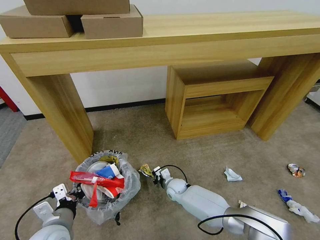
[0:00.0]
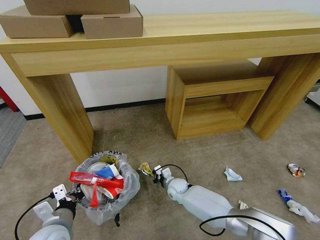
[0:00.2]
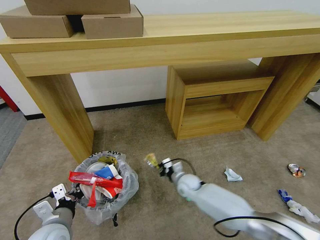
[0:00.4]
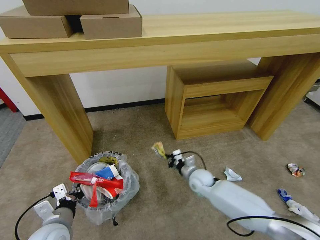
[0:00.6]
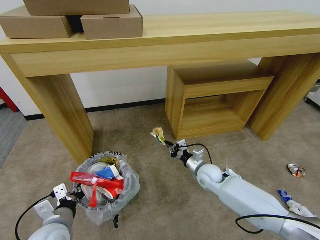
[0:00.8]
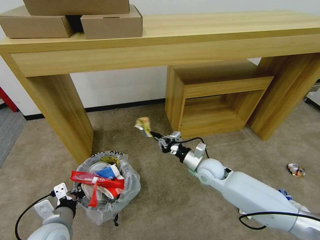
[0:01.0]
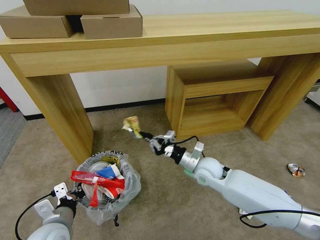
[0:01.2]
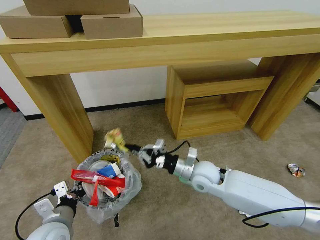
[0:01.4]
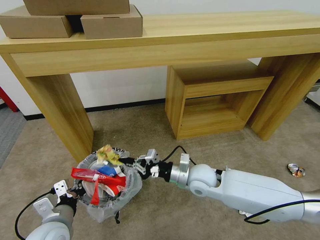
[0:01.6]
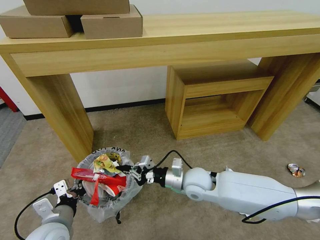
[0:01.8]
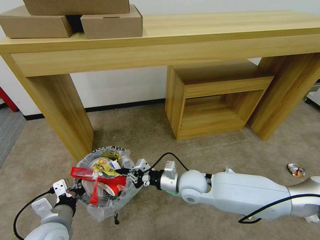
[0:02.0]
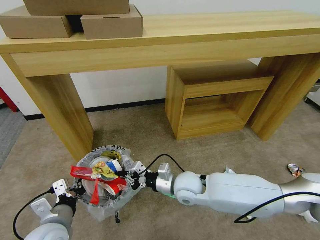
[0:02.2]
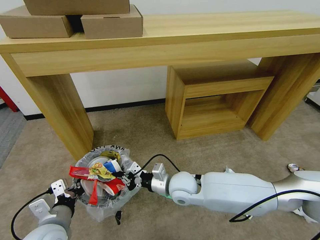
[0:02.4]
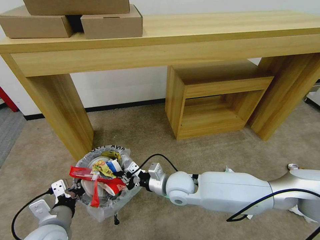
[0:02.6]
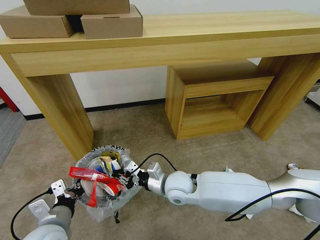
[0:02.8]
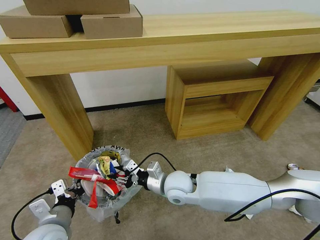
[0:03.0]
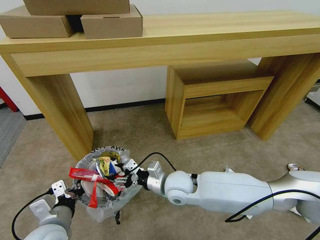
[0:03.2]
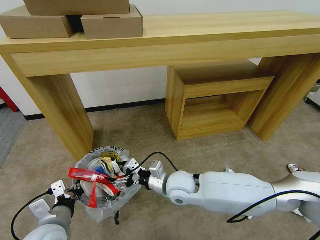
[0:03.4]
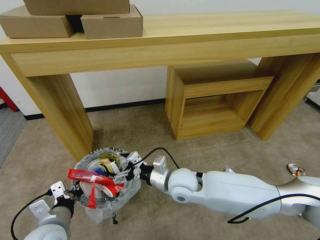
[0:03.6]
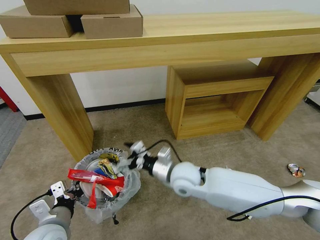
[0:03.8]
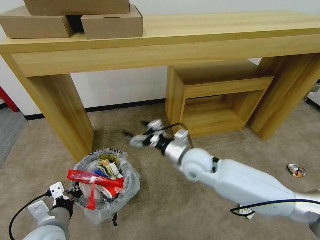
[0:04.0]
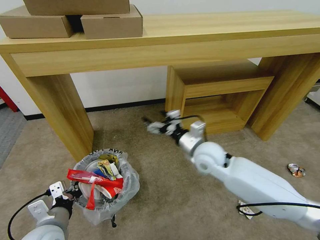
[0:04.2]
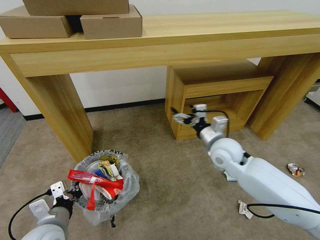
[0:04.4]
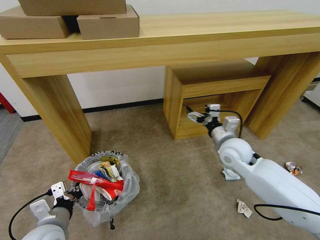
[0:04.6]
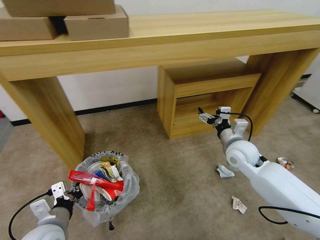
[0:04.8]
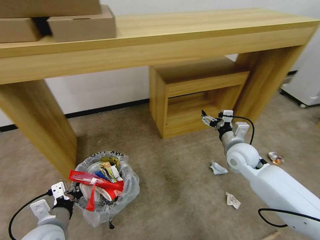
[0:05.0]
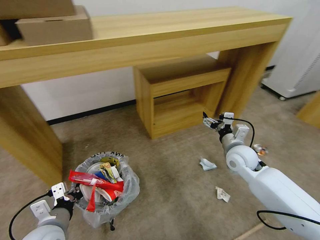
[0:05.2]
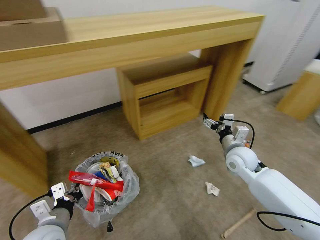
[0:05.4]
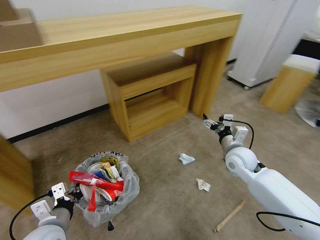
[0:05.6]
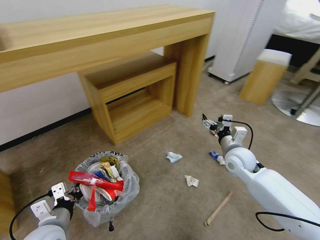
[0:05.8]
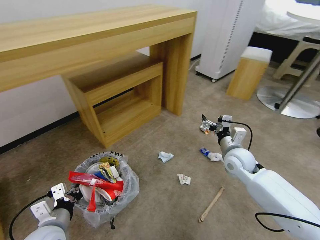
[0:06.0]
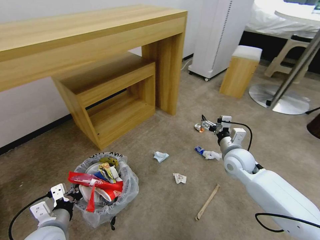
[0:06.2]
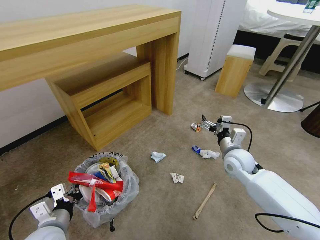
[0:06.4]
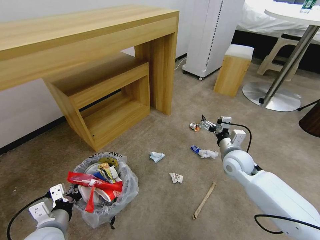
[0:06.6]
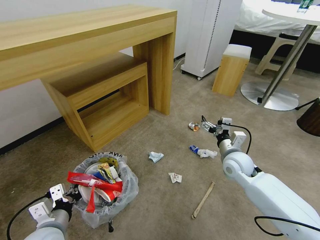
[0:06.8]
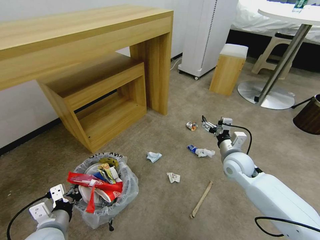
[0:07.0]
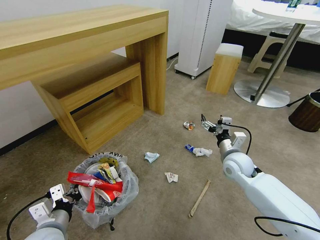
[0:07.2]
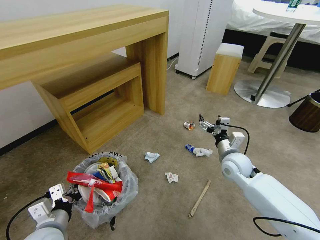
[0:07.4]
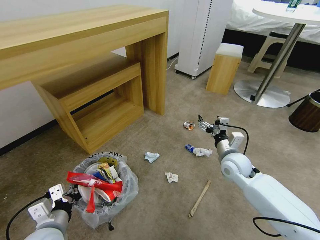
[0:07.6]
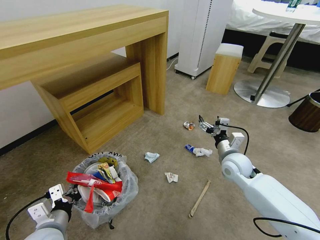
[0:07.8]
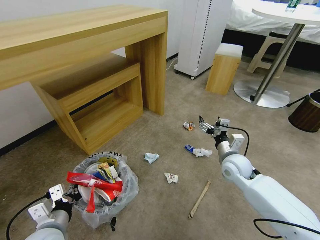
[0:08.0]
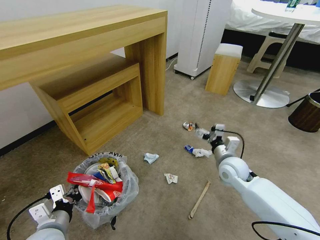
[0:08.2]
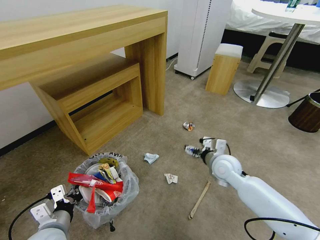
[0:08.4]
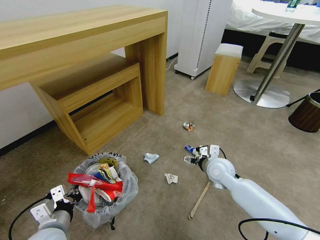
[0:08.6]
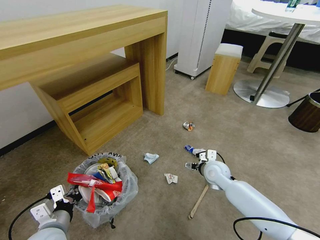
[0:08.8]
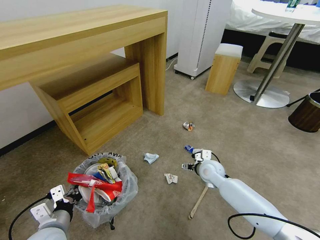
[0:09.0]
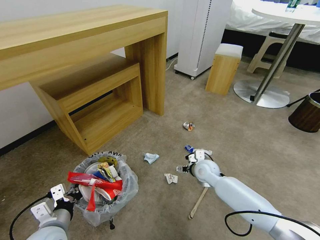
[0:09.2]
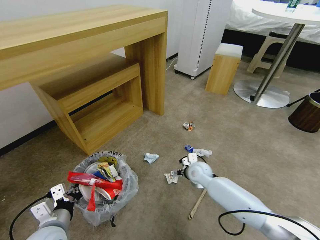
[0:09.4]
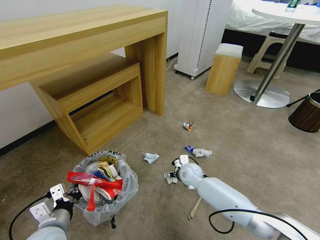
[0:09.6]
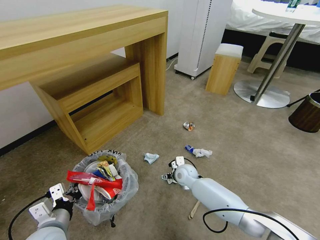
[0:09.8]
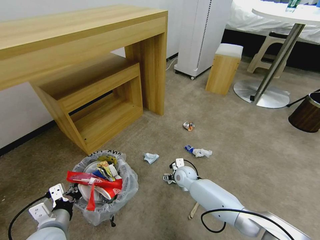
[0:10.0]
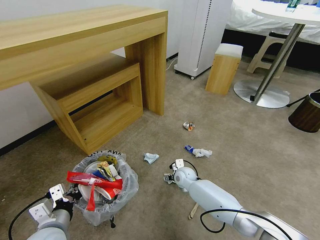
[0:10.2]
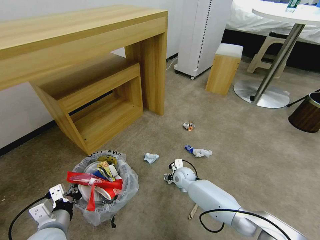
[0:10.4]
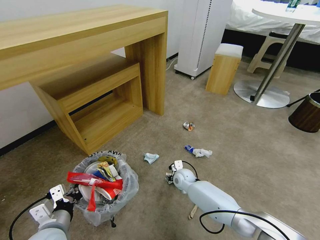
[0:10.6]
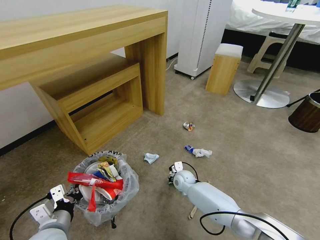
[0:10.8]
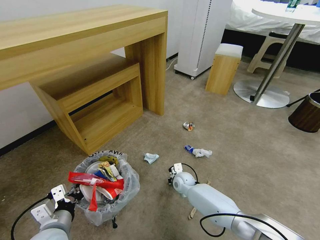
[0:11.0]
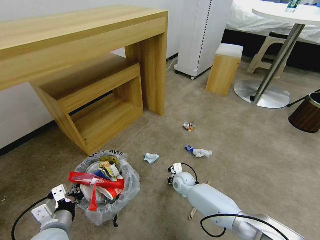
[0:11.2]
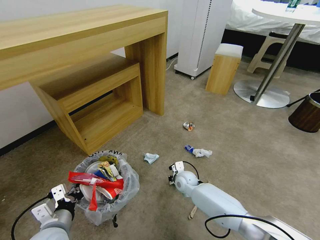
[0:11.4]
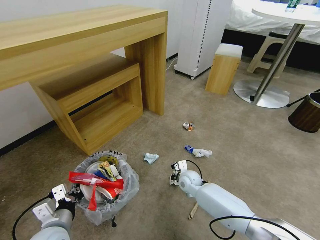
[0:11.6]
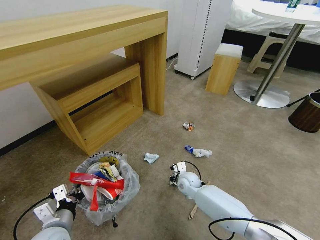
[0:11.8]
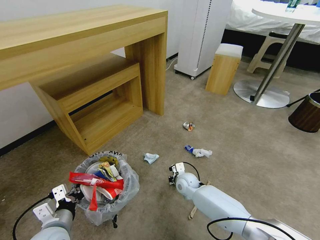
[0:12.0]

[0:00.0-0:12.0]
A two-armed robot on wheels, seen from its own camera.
Task of the whole recording: Pick up the trash bin and place the garbage on the floor into it.
0:00.0 to 0:01.6: The right gripper travels upward by some 25 cm.
0:01.6 to 0:03.0: The right gripper goes roughly 10 cm to the left, and opens its fingers.
0:03.0 to 0:04.4: The right gripper is displaced to the right, upward and forward by roughly 20 cm, and opens.
0:04.4 to 0:06.0: The right gripper moves to the right and downward, about 10 cm.
0:07.6 to 0:09.0: The right gripper heads downward and to the left, covering about 10 cm.
0:09.0 to 0:10.4: The right gripper goes approximately 15 cm to the left and downward.
0:10.4 to 0:12.0: The right gripper closes its fingers.

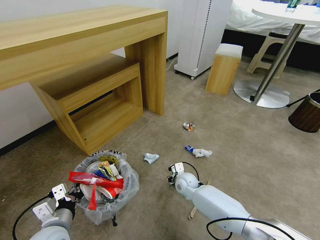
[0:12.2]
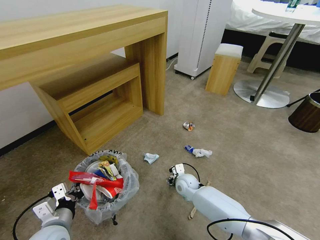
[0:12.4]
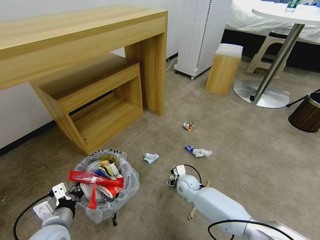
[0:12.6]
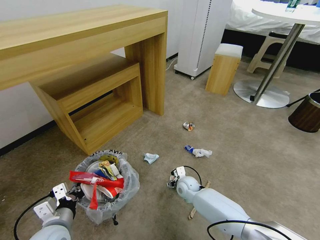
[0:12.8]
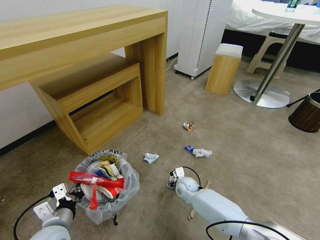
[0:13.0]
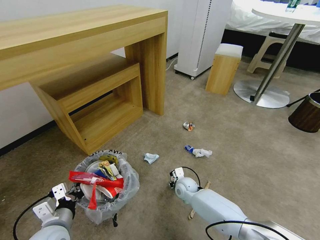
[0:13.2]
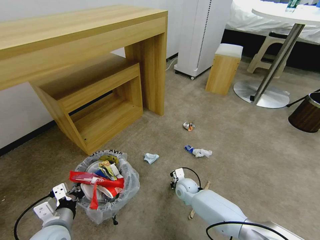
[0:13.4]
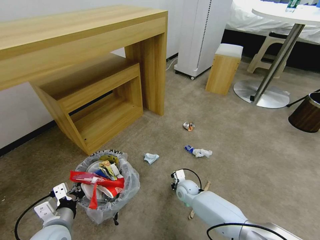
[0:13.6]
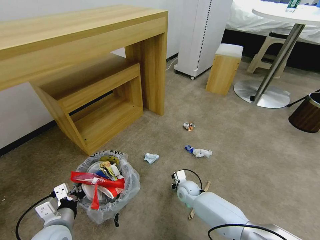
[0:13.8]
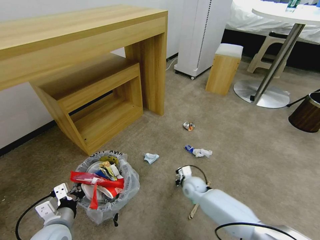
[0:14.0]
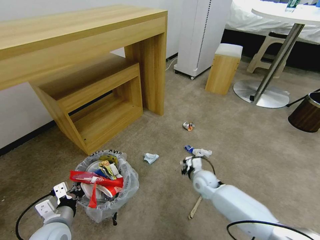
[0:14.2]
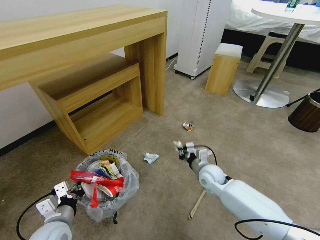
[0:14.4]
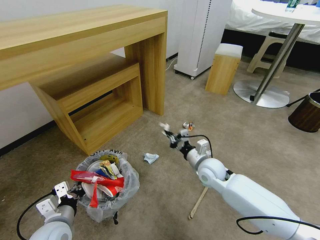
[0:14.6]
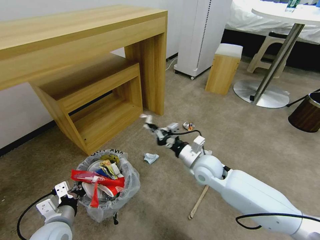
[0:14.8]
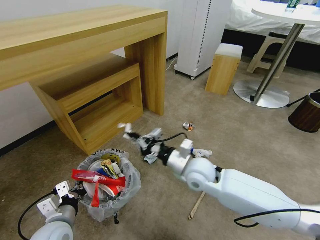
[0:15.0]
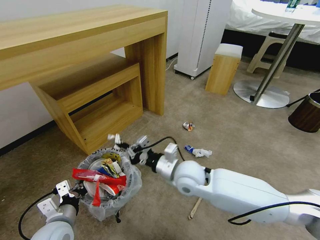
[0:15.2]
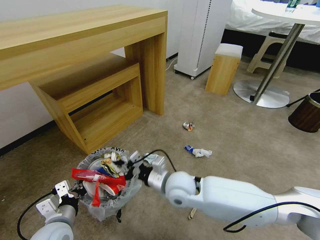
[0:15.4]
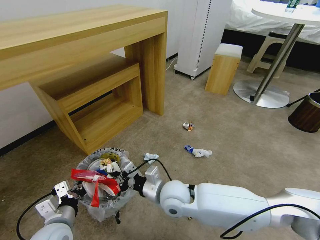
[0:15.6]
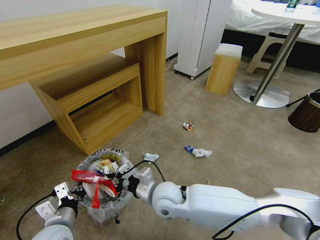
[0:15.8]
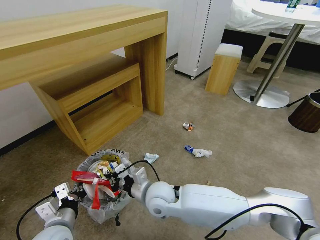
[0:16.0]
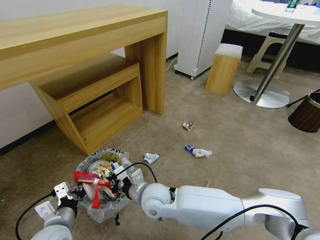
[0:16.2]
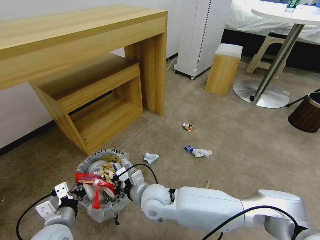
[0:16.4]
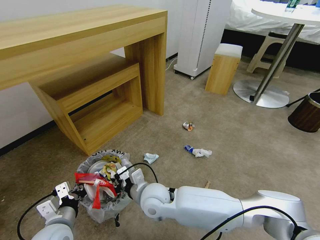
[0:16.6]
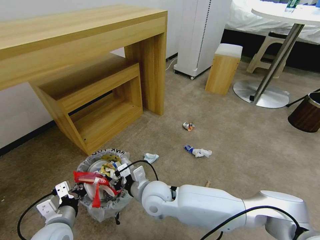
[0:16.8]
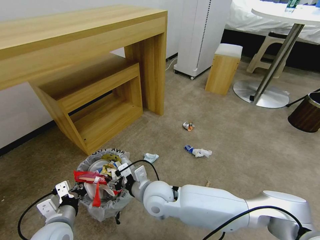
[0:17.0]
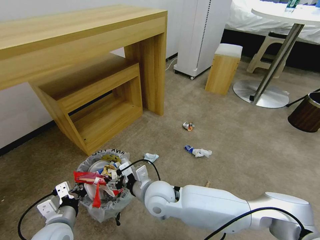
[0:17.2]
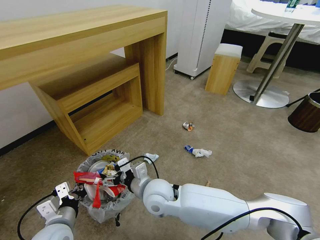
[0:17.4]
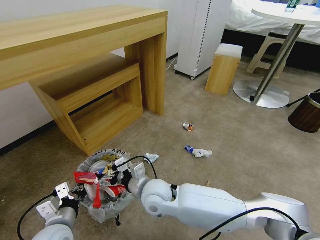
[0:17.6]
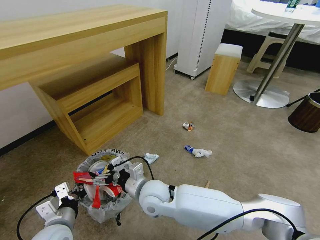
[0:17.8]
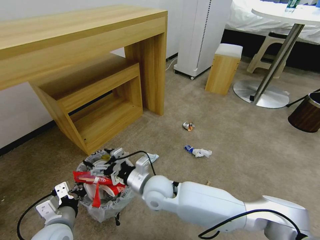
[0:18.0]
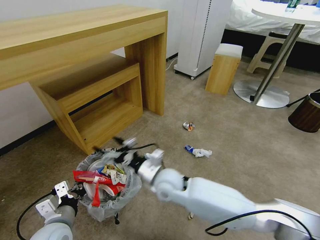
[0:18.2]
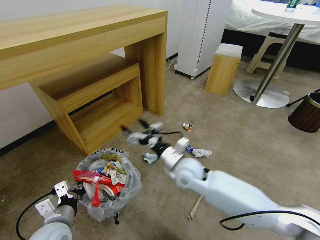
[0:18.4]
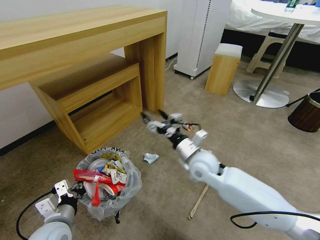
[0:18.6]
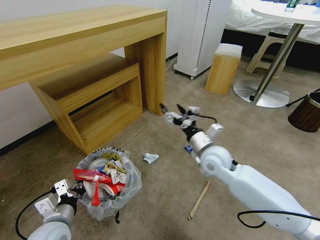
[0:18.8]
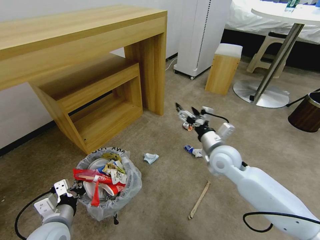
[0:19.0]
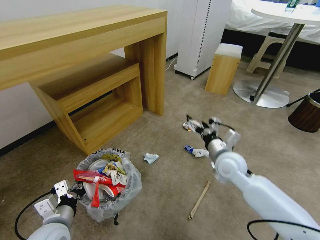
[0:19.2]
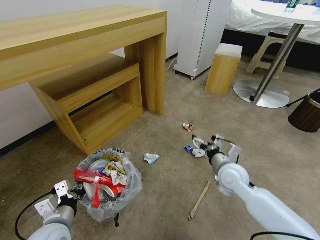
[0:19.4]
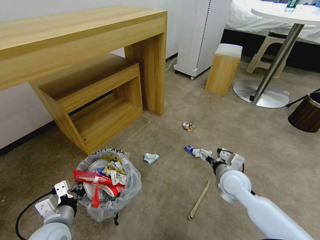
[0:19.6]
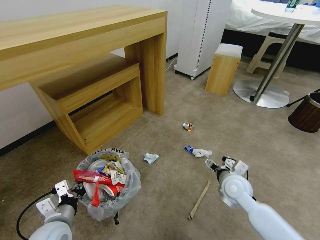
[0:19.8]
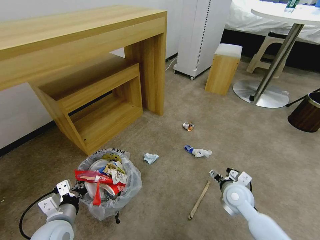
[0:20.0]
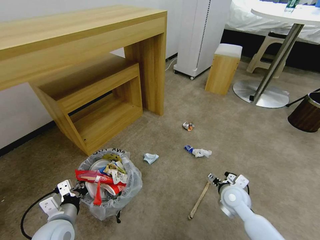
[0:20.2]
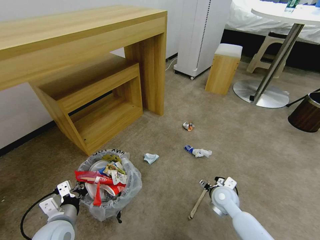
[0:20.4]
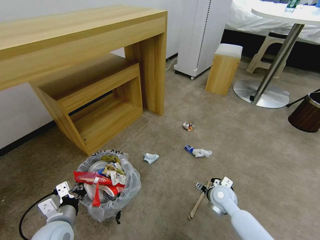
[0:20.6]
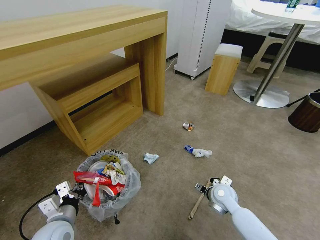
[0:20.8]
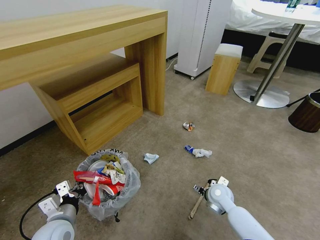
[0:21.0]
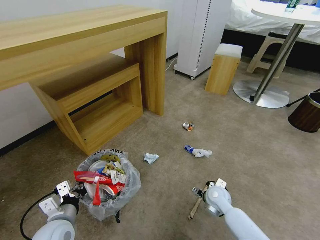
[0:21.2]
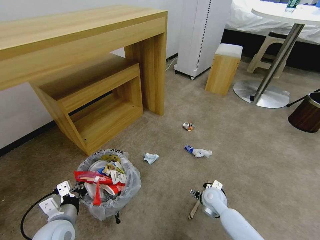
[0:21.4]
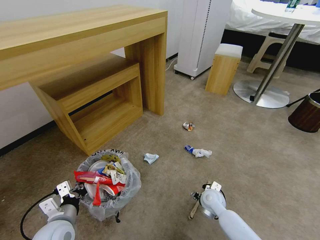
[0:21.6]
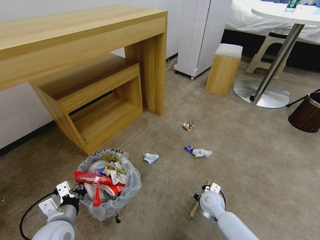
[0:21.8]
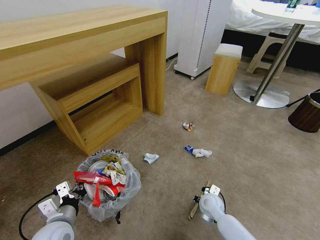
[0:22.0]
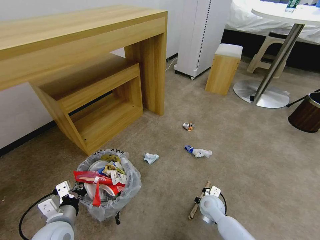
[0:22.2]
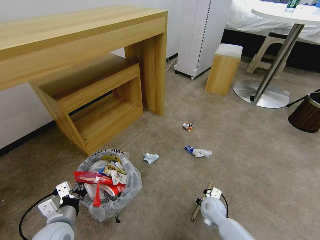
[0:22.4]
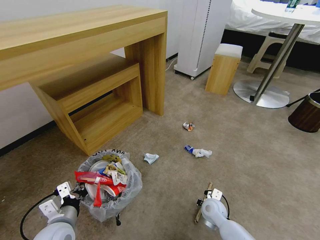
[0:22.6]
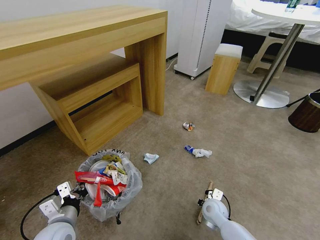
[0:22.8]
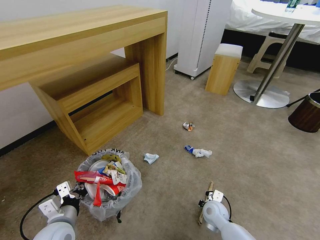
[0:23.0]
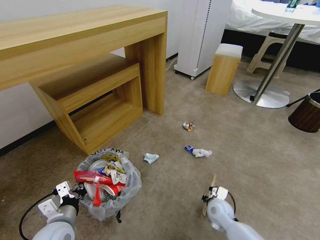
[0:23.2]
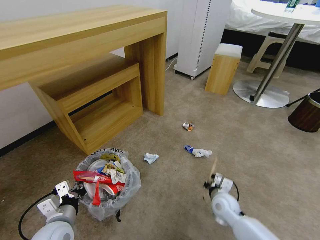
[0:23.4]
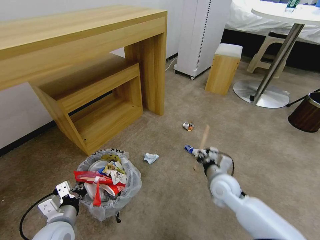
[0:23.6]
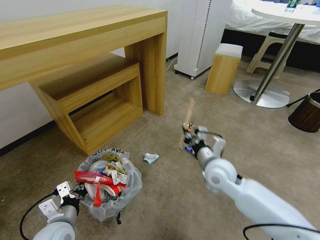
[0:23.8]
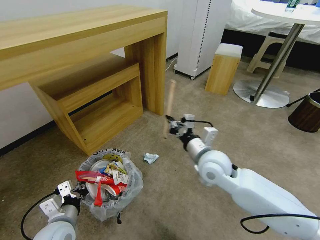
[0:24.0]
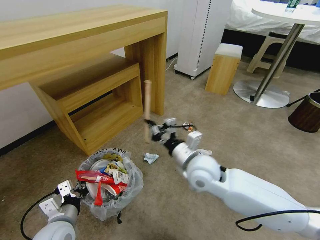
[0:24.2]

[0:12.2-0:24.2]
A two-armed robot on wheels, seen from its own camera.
Task of the whole recording: Pick up the trash bin and place the garbage on the floor into it.
0:12.2 to 0:13.8: The right gripper closes.
0:13.8 to 0:15.2: The right gripper is displaced upward by approximately 25 cm.
0:15.2 to 0:16.6: The right gripper goes roughly 10 cm to the left and downward.
0:16.6 to 0:18.2: The right gripper is displaced to the right by about 5 cm, and opens its fingers.
0:18.2 to 0:19.8: The right gripper moves to the right, about 20 cm.
0:19.8 to 0:21.2: The right gripper moves downward, some 10 cm.
0:21.2 to 0:22.6: The right gripper changes place by some 5 cm, and closes up.
0:22.6 to 0:24.2: The right gripper goes about 25 cm upward.
